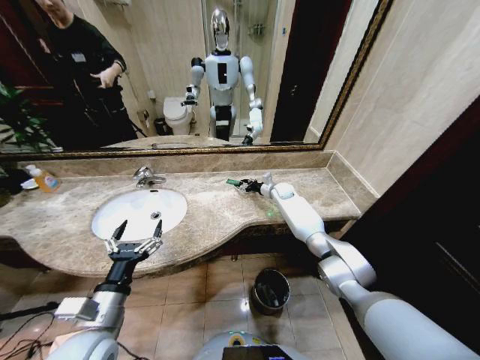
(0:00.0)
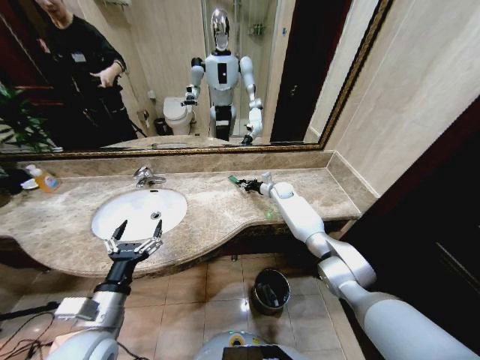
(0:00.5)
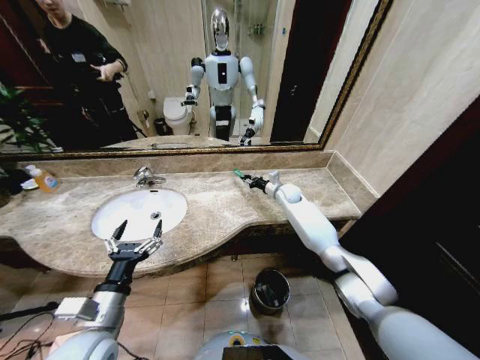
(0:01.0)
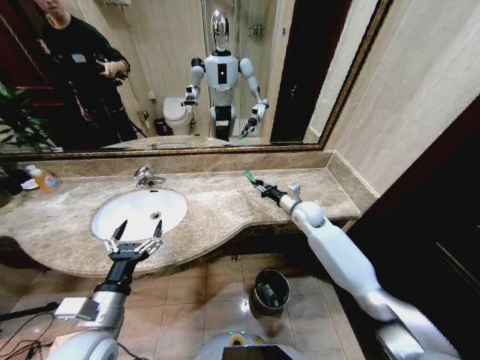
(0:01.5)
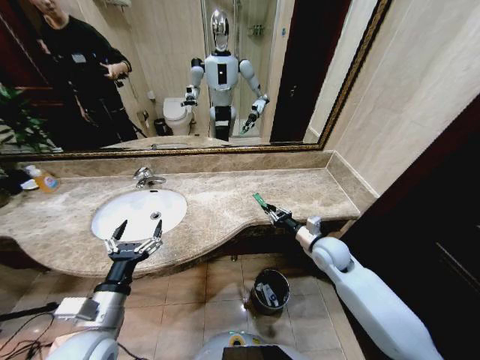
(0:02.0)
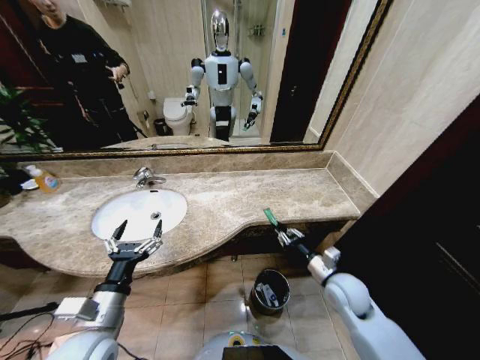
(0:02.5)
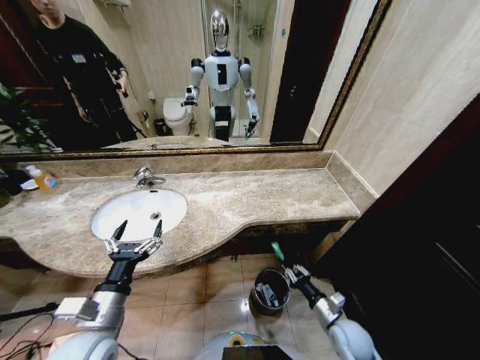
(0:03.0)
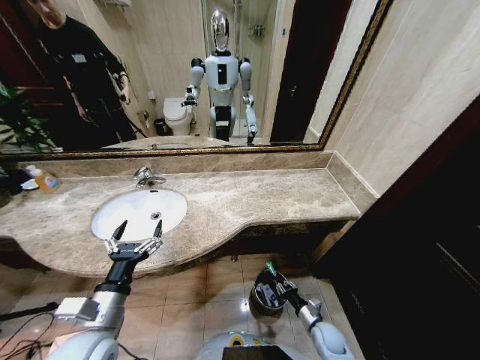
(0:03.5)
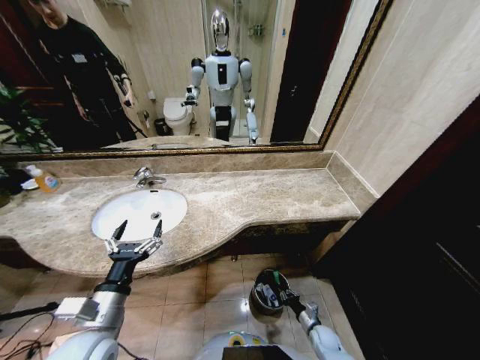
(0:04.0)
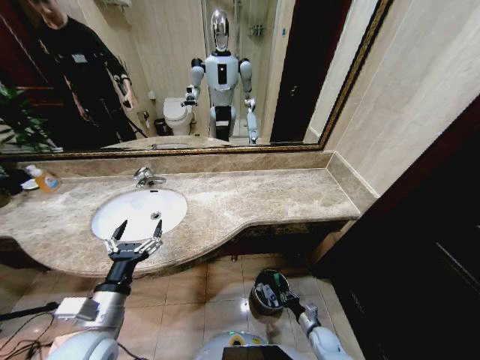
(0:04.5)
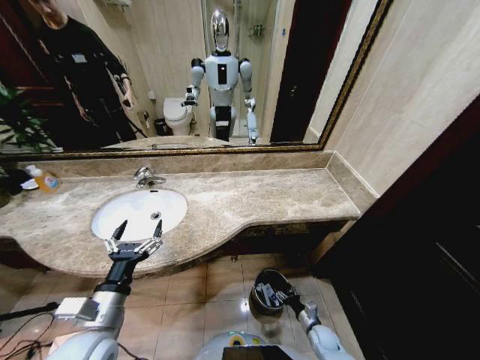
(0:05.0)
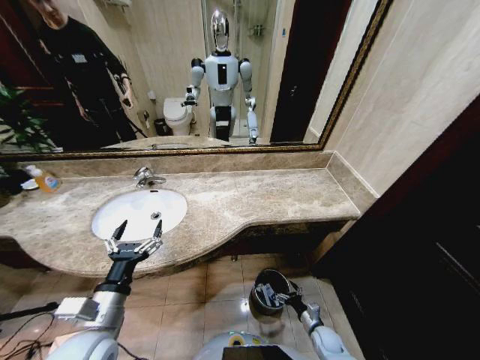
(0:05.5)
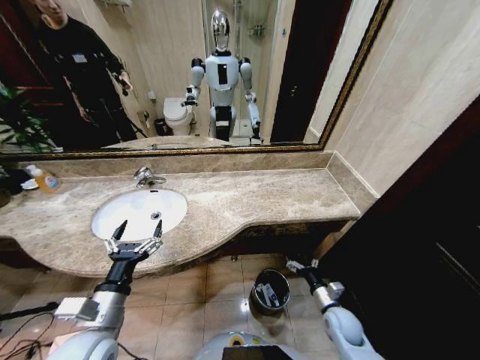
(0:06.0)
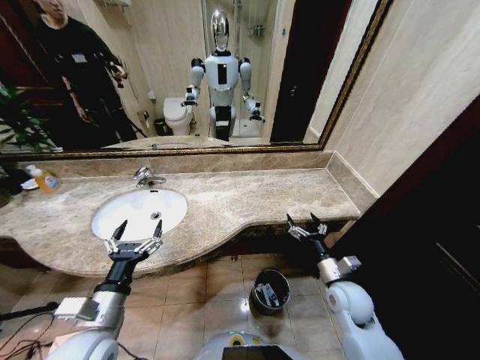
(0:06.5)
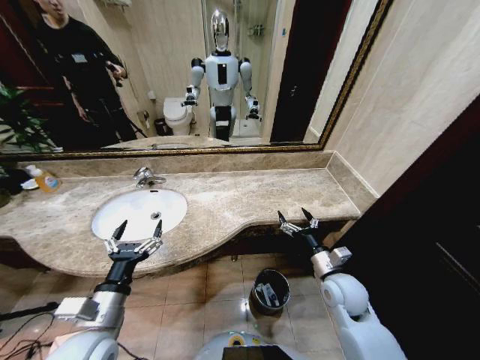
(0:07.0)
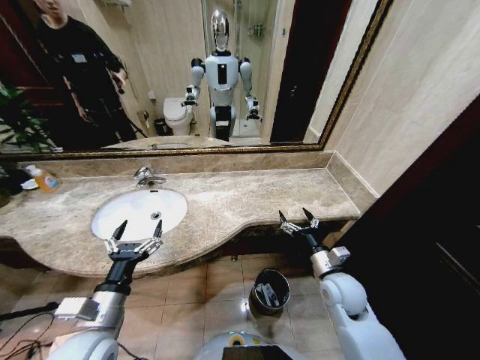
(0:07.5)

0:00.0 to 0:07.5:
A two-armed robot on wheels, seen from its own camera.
Task of the whole recording: Pick up the trash from the sink and place it in the trash bin.
0:00.0 to 0:02.0: The right gripper shifts some 30 cm backward, and closes.
0:02.0 to 0:04.0: The right gripper moves downward and backward, roughly 40 cm.
0:04.0 to 0:05.5: The right gripper opens up.
0:05.5 to 0:07.5: The right gripper is displaced upward by about 30 cm.
